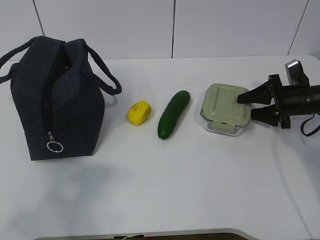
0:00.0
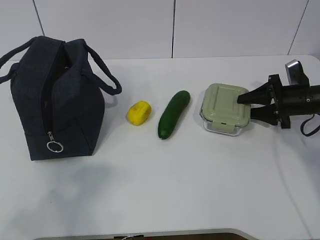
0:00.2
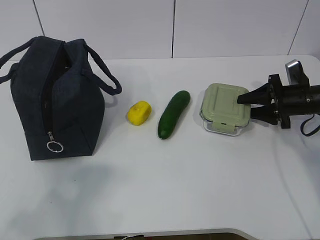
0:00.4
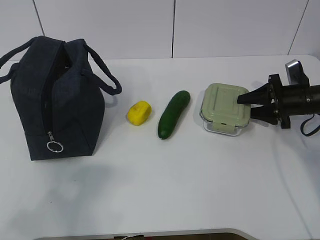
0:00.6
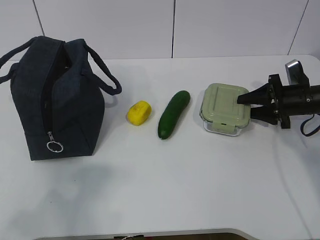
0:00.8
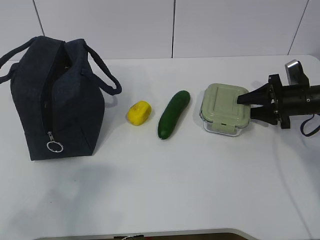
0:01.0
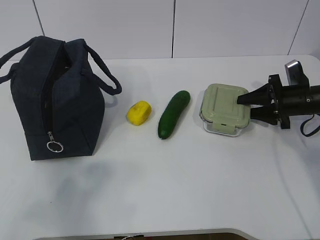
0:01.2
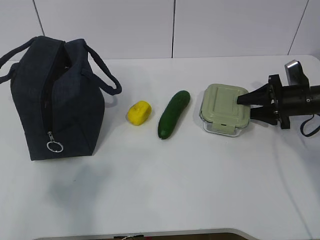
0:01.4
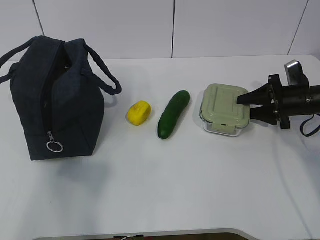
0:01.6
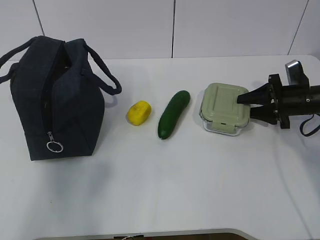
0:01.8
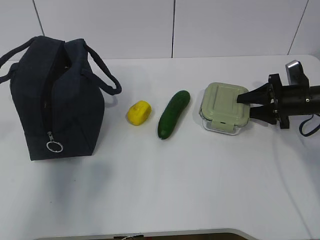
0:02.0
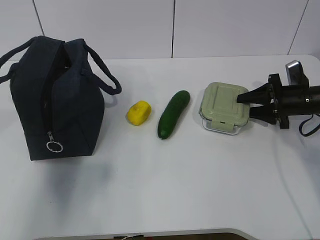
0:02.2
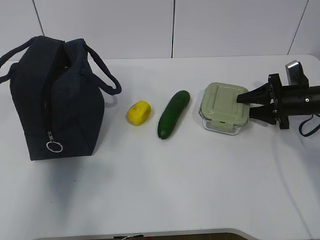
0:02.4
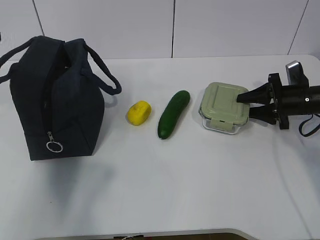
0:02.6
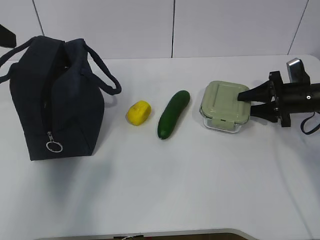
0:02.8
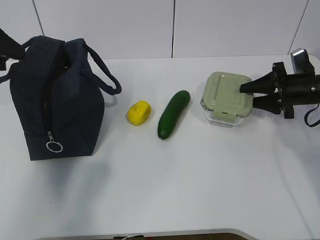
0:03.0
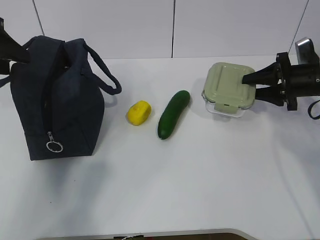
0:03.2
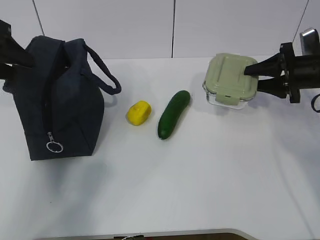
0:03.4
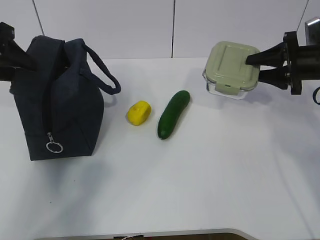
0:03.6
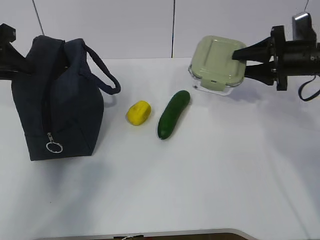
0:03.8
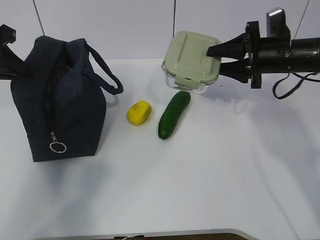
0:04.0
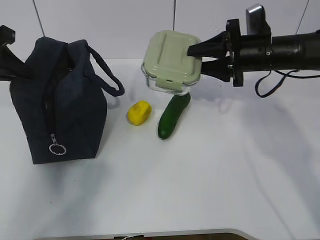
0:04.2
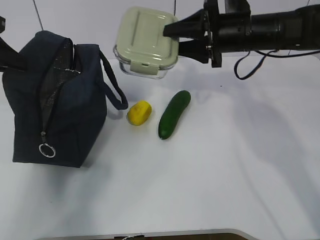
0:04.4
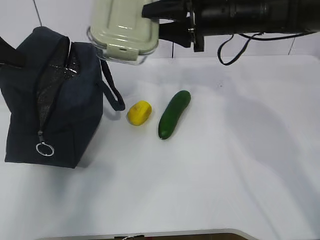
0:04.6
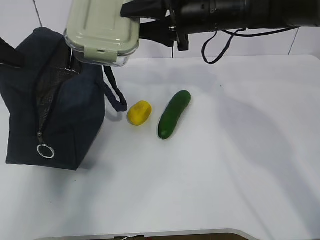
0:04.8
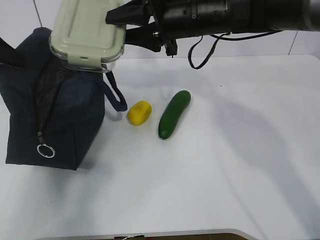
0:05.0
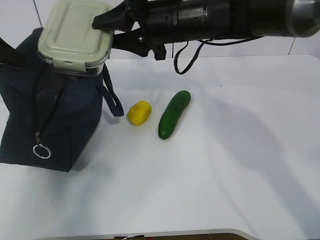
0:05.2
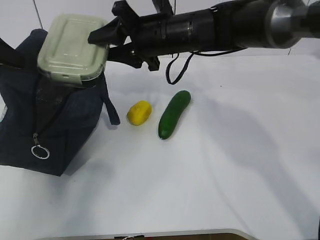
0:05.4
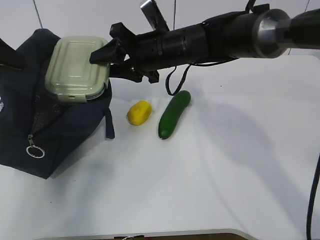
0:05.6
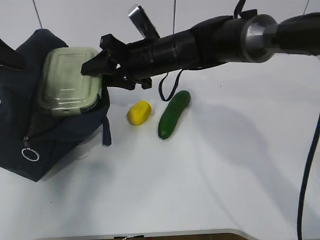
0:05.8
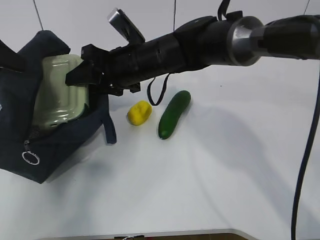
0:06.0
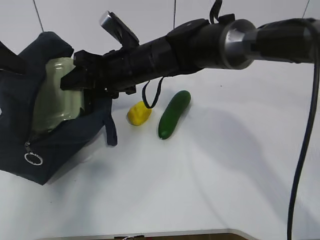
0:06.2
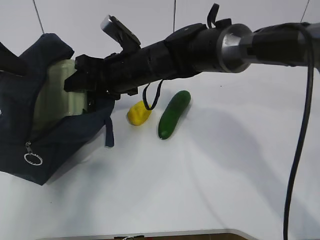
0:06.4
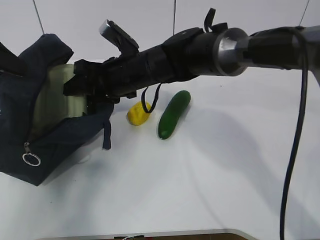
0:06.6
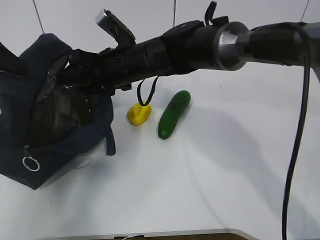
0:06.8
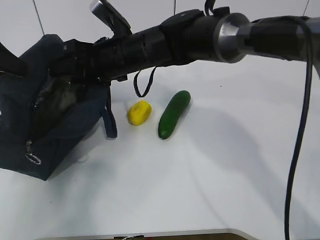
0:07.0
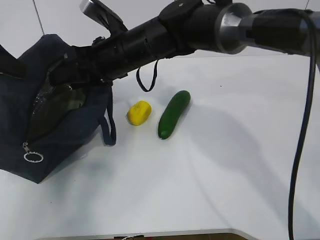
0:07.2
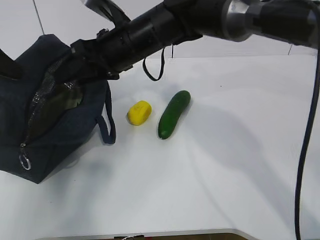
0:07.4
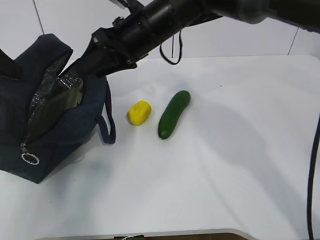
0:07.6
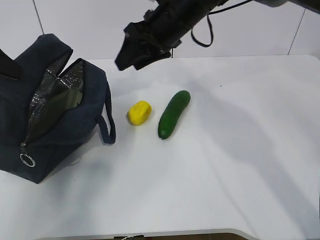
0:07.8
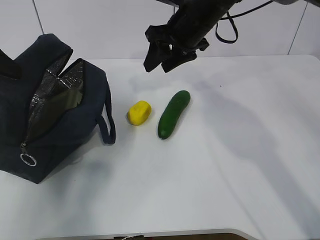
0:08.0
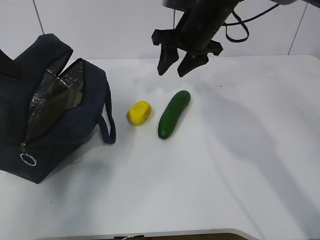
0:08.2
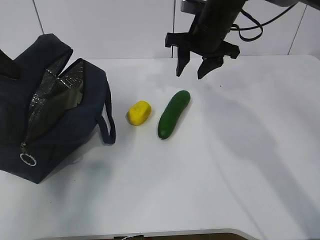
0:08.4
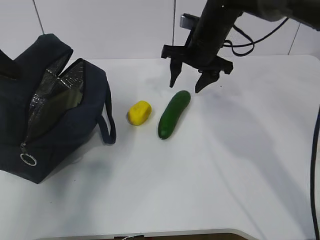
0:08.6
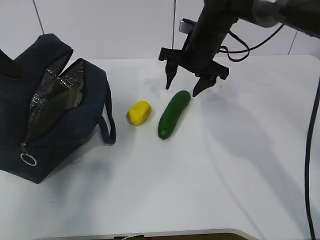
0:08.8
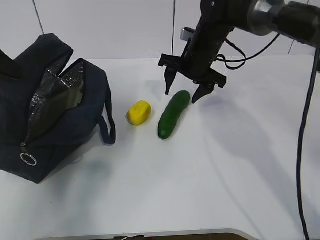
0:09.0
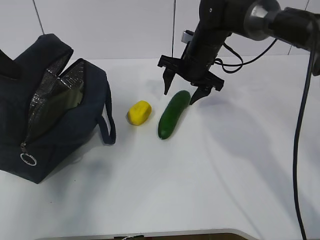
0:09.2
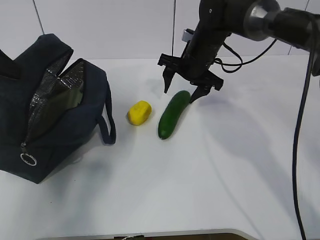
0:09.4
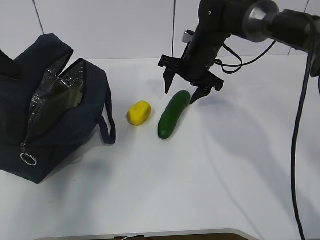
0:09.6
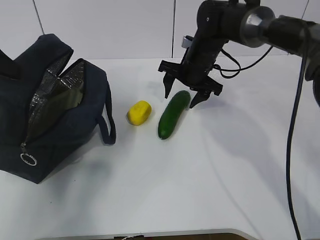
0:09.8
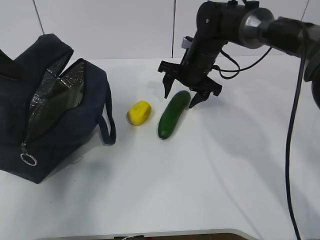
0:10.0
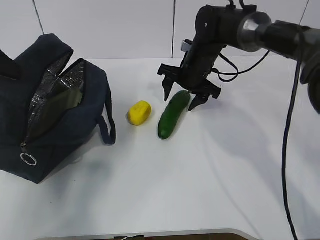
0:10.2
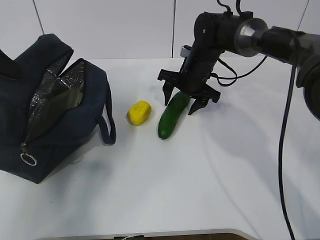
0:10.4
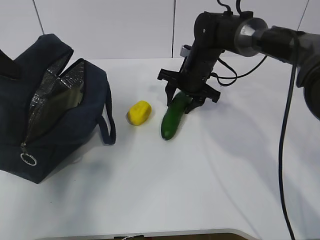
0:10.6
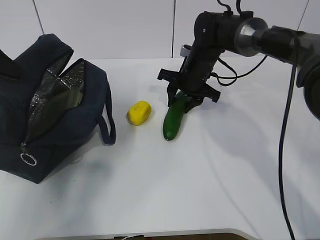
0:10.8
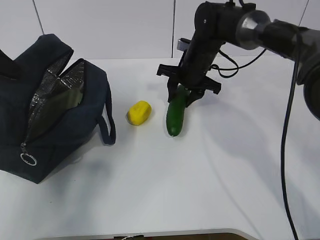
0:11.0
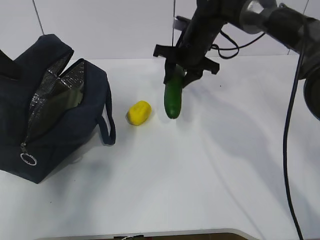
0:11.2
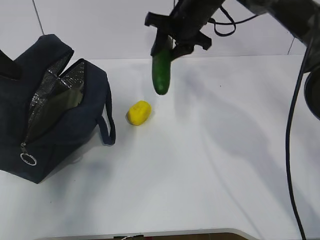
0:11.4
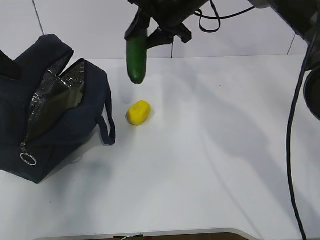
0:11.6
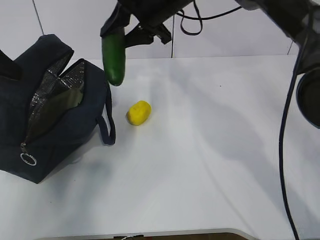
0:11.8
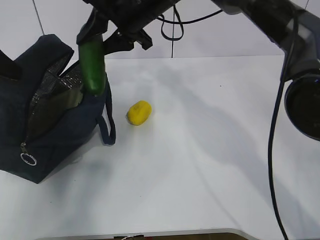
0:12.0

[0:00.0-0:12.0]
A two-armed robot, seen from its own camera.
Step, 0:00.0 to 0:03.0: Grab the lunch bag with your left hand.
Step, 0:03.2 to 0:04.6: Place it into the bag with your right hand.
Step, 0:04.8 to 0:07.6: Grab the cucumber with your right hand.
Step, 0:07.8 to 0:10.4: Place it into the bag with your right hand.
0:01.6 to 0:03.0: The left gripper shifts approximately 30 cm forward.
0:03.0 to 0:04.4: The right gripper is displaced to the left and upward by roughly 20 cm, while the left gripper closes.
0:04.4 to 0:06.0: The right gripper is displaced to the left by some 20 cm.
0:06.0 to 0:07.6: The right gripper goes some 5 cm upward.
0:07.6 to 0:09.0: The right gripper shifts approximately 15 cm to the right, downward and forward.
0:09.0 to 0:10.4: The right gripper ends up about 5 cm from where it was.
0:10.4 to 0:12.0: The right gripper goes approximately 15 cm upward and to the left.

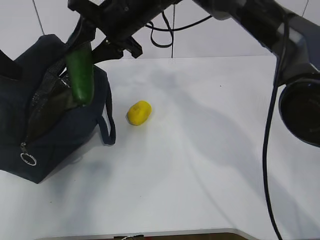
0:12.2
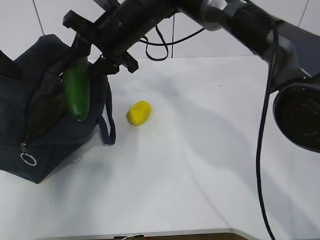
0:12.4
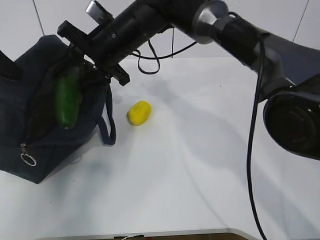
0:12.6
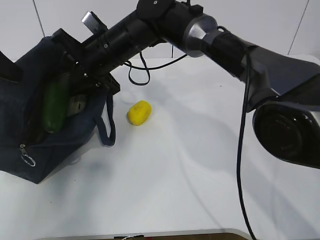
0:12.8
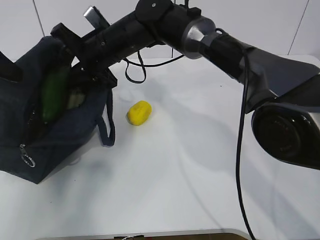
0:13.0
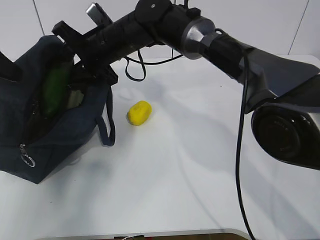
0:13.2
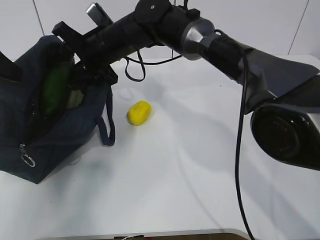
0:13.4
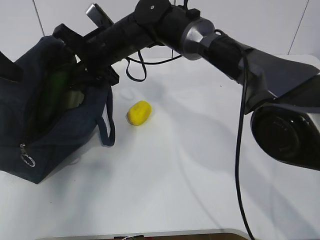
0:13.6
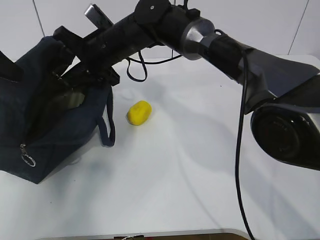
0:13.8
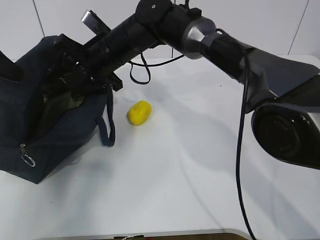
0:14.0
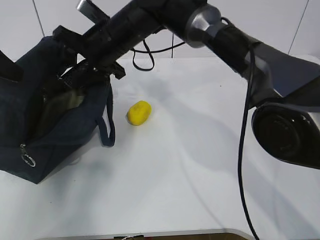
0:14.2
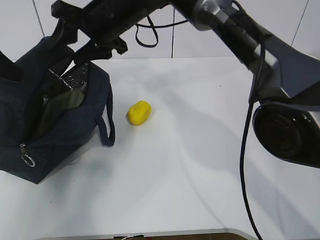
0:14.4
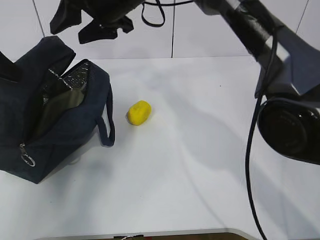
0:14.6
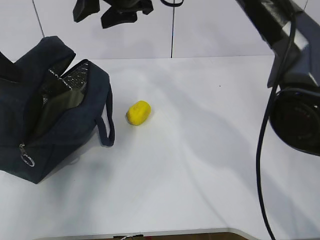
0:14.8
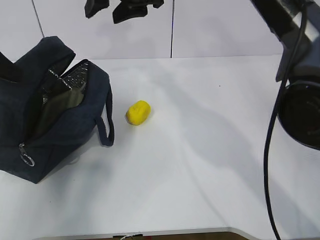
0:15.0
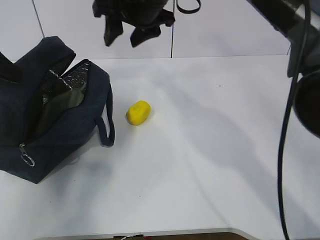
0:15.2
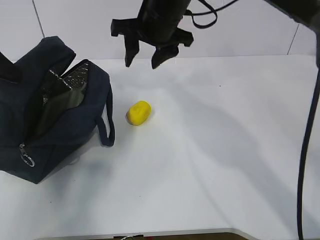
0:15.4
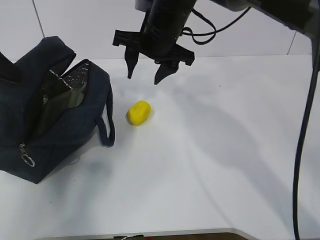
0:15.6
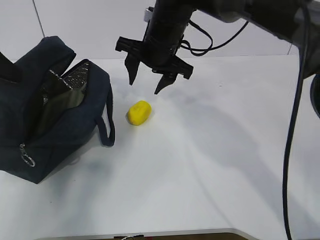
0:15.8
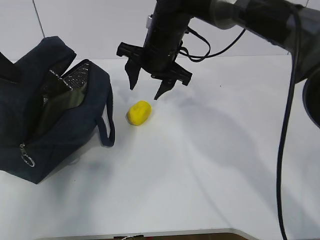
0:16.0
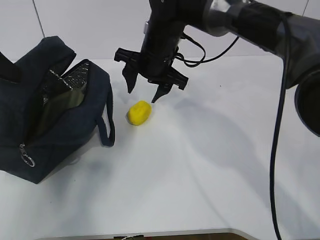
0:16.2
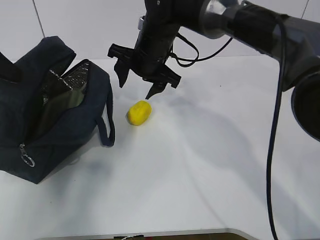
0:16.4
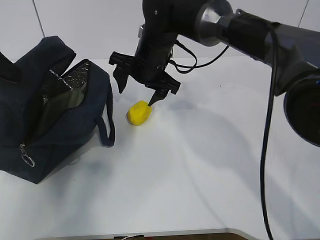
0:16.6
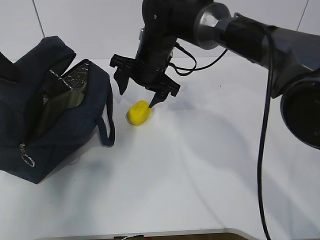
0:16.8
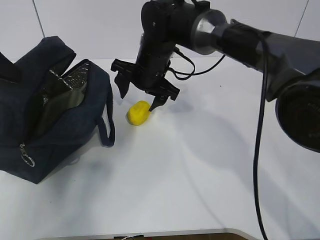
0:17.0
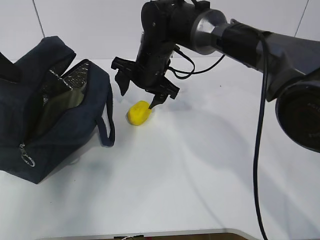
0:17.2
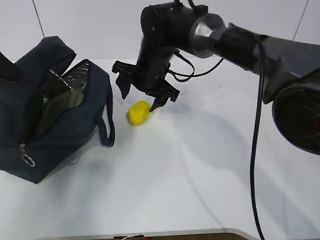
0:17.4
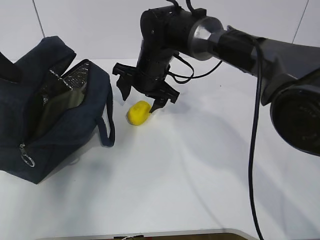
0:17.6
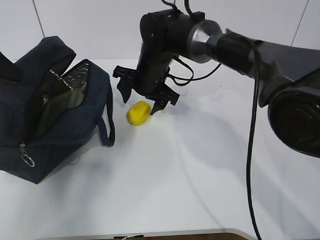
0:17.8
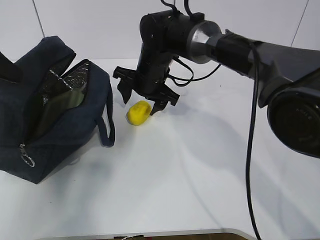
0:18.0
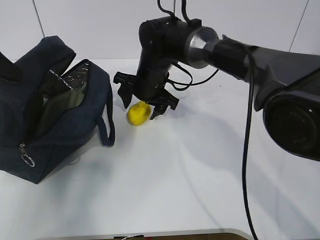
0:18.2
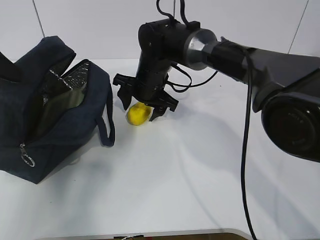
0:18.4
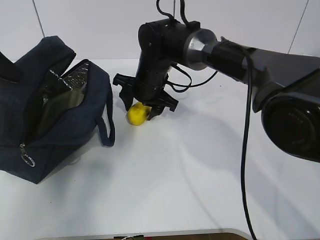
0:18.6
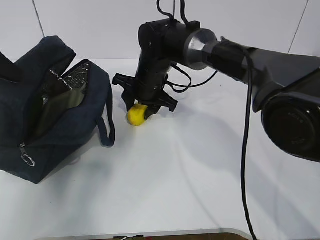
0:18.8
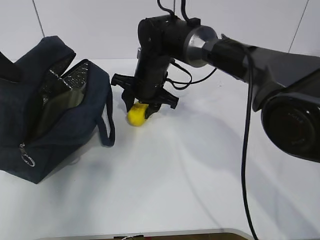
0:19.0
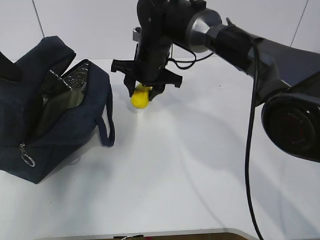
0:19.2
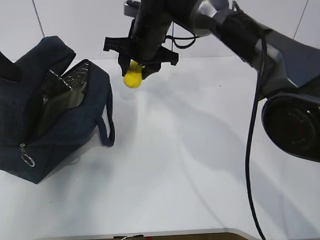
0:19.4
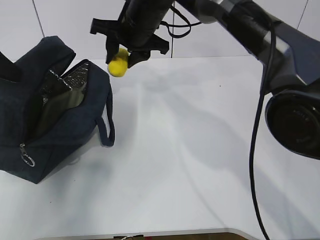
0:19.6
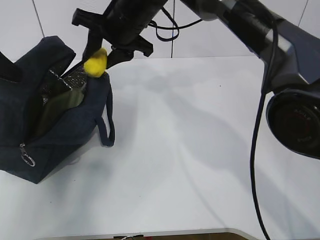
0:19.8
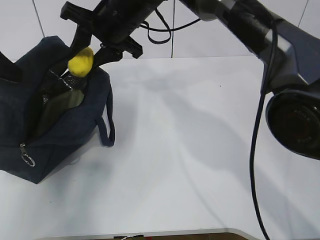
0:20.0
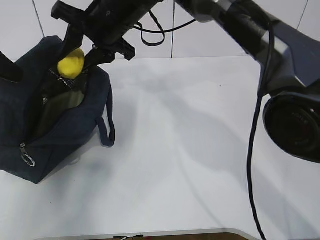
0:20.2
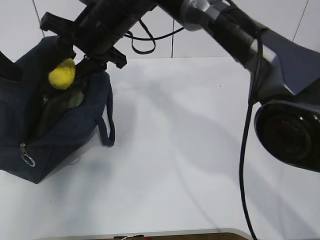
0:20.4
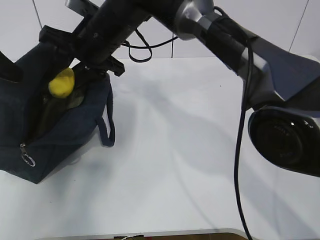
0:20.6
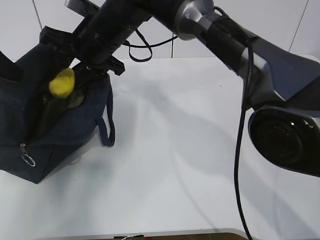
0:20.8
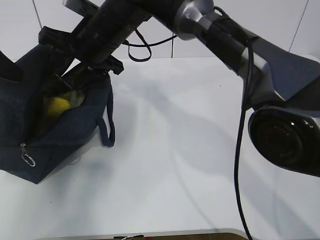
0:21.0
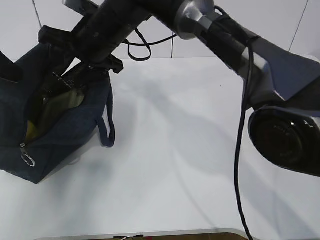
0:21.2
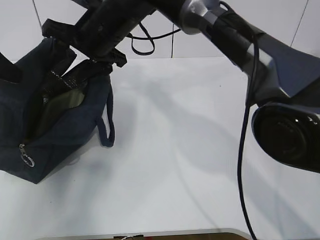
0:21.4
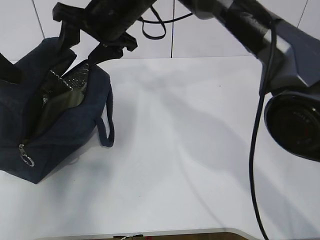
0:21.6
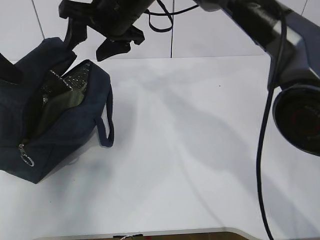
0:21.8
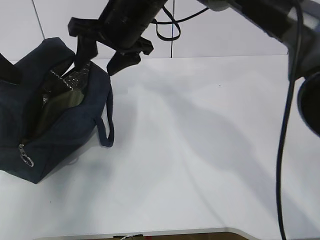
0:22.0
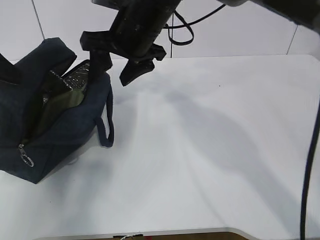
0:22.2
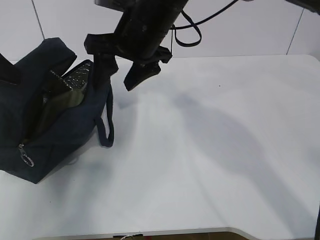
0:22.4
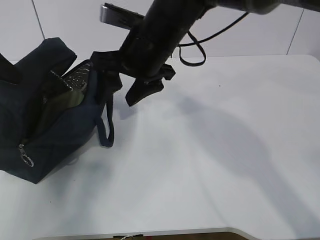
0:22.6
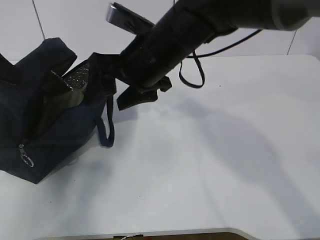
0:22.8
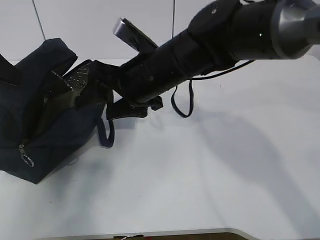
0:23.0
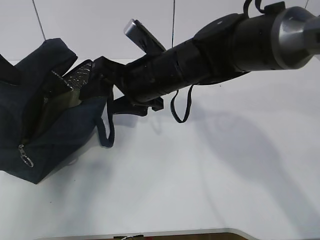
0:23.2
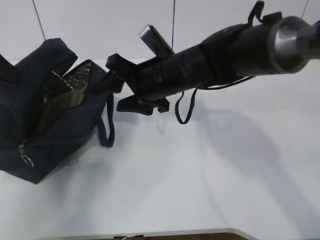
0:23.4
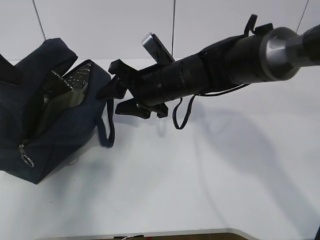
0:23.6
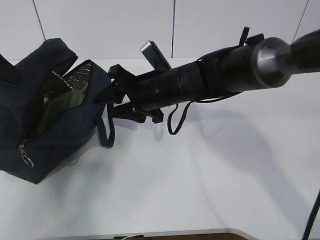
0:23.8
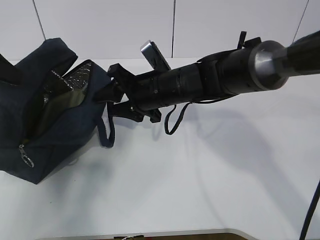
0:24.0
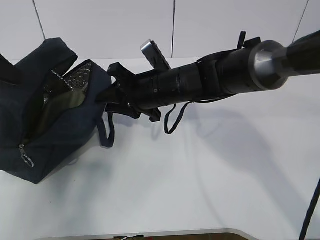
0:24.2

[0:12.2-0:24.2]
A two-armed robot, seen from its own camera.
Step, 0:12.2 to 0:14.2: Grab the lemon with your right hand.
Step, 0:16.6 to 0:19.0: Grab the lunch bag with your right hand.
Step, 0:19.2 to 0:22.2: Move the lunch bag to the right.
0:12.2 to 0:13.8: The right gripper travels downward by about 5 cm.
0:13.8 to 0:15.2: The right gripper moves upward and to the right, roughly 10 cm.
0:15.2 to 0:16.6: The right gripper is displaced downward by approximately 10 cm.
0:16.6 to 0:18.2: There are only small adjustments of the grippers.
0:18.2 to 0:19.8: The right gripper goes approximately 10 cm upward, and closes up.
0:19.8 to 0:21.2: The right gripper moves approximately 5 cm.
0:21.2 to 0:22.6: The right gripper moves to the right, about 5 cm.
0:22.6 to 0:24.2: The right gripper moves downward, about 10 cm, and closes up.
